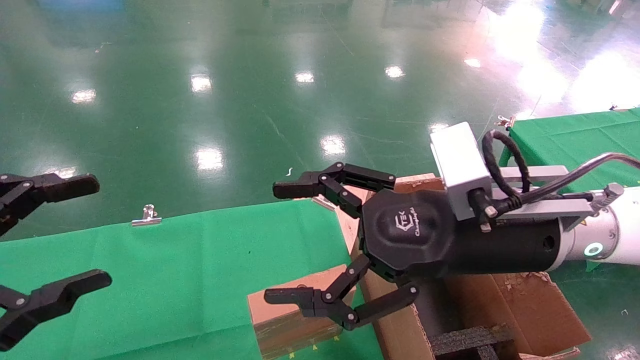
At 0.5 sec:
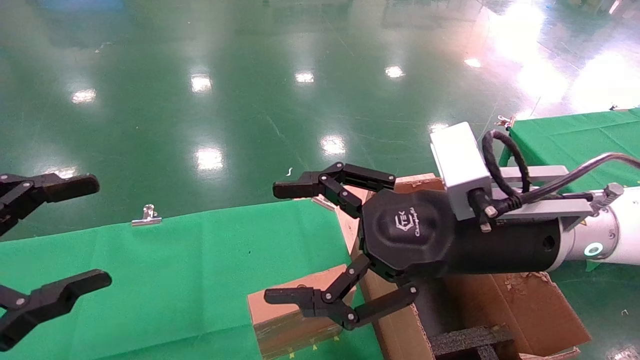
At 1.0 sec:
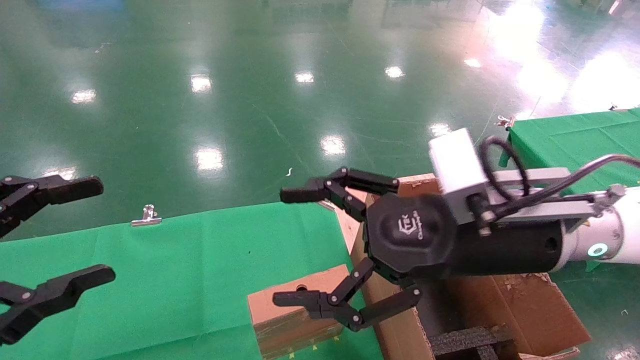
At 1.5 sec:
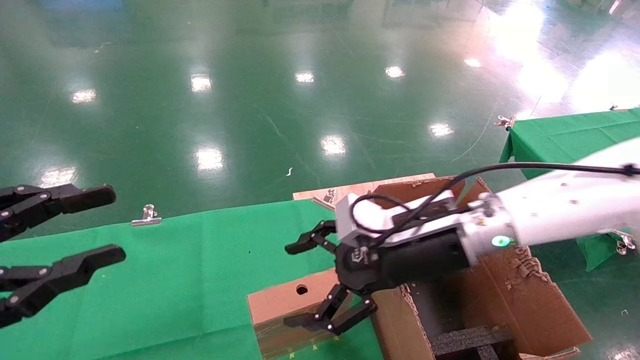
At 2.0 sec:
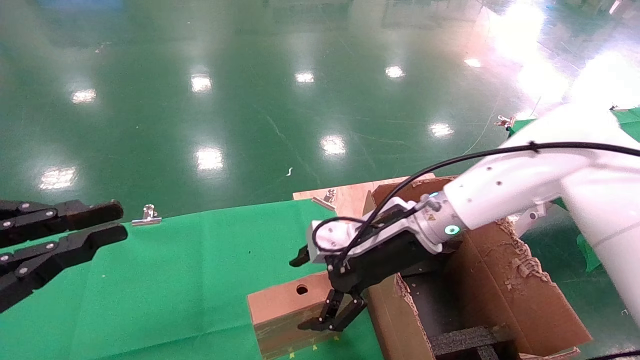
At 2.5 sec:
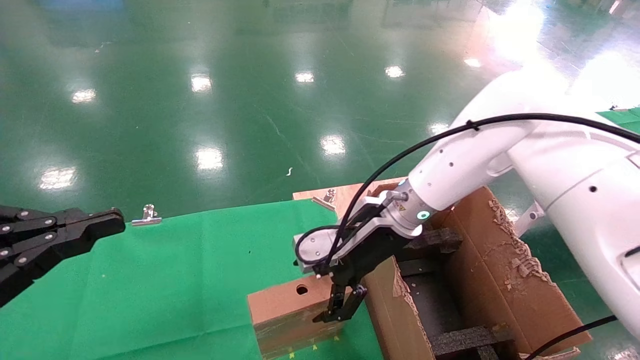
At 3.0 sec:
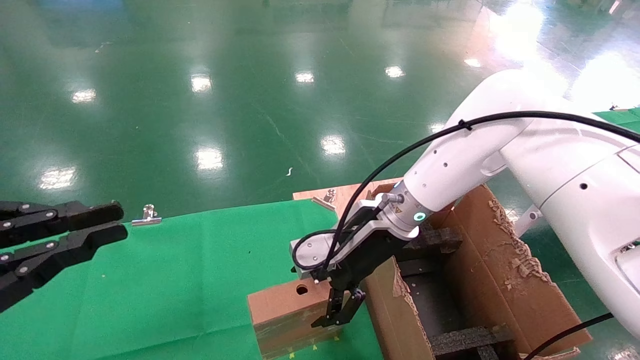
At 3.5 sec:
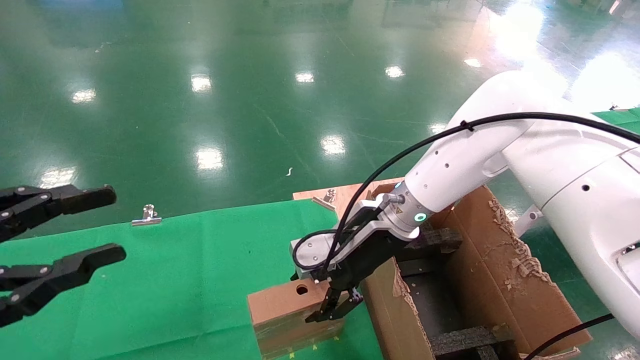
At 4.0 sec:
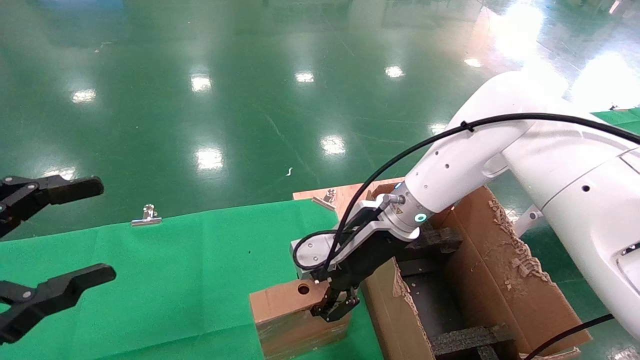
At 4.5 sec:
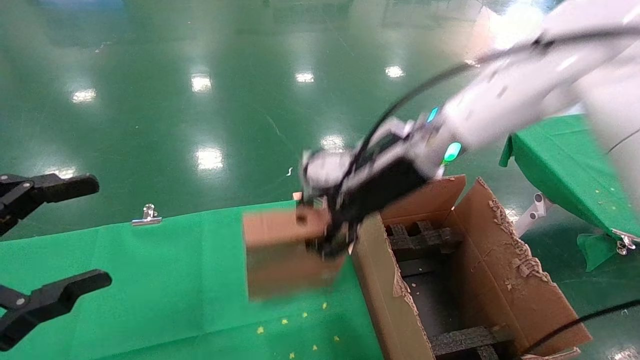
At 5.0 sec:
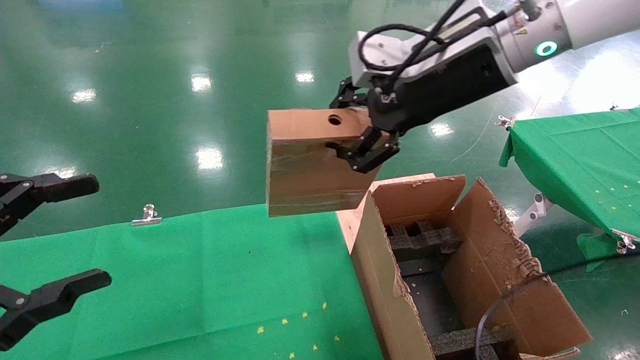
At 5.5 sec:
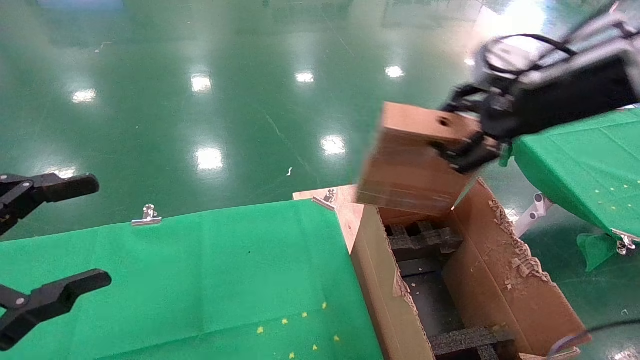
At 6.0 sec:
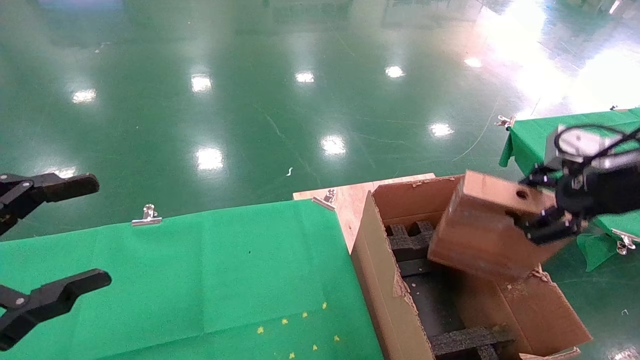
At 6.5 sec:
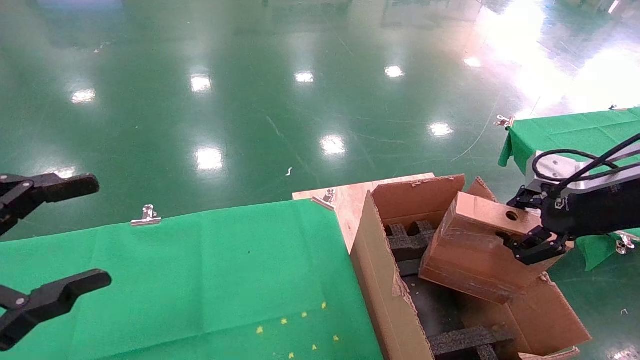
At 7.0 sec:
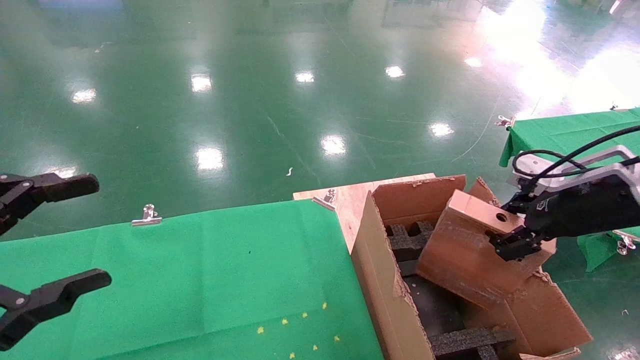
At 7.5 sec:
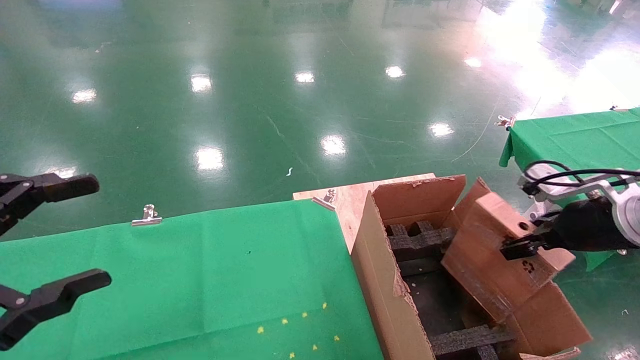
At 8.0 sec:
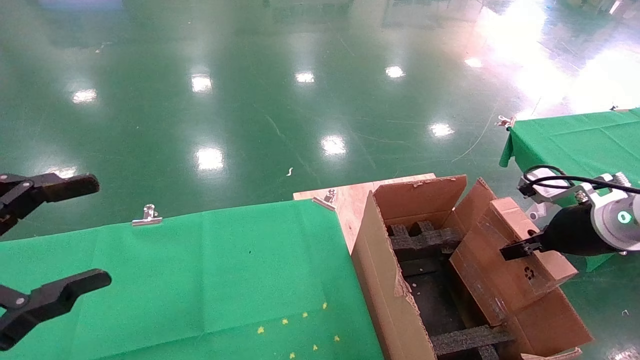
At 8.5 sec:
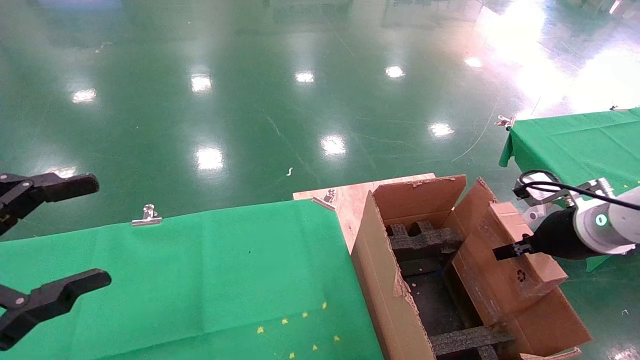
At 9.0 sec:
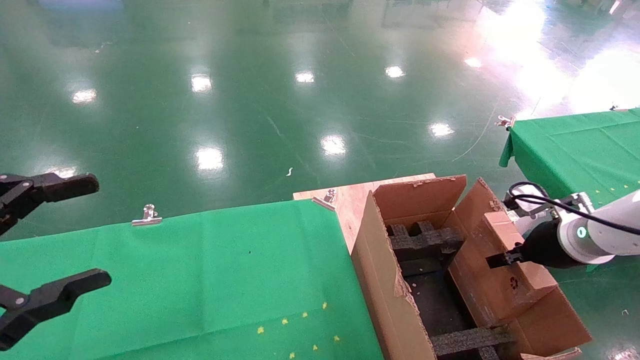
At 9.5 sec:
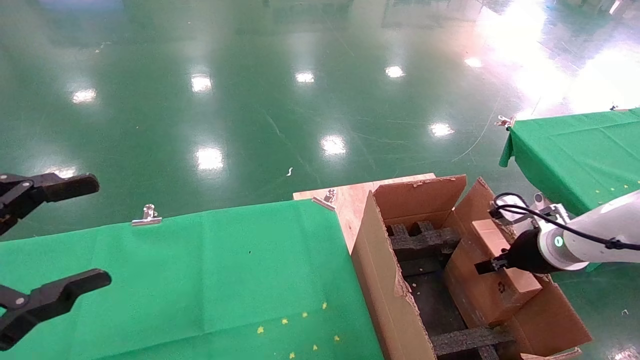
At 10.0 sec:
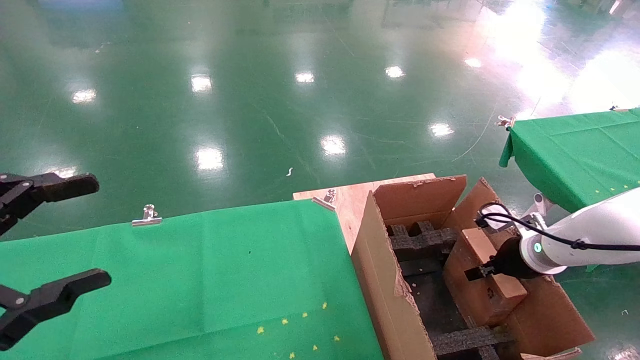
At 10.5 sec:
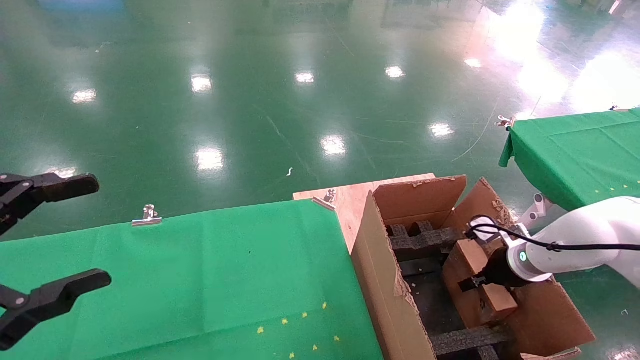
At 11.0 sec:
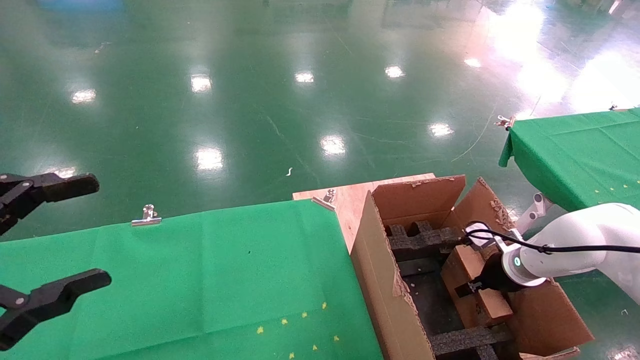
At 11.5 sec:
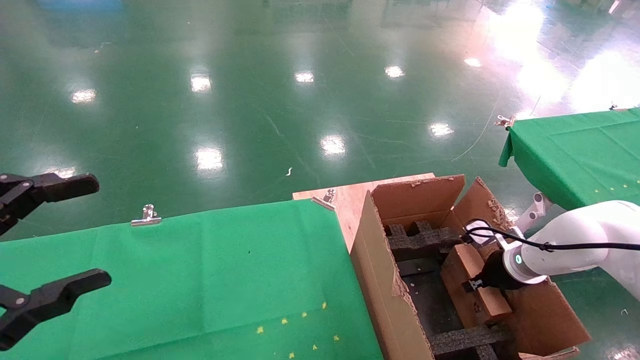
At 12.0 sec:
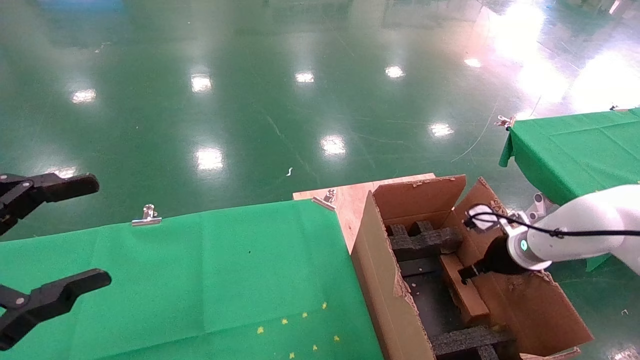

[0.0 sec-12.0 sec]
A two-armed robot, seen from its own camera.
Task of the whole recording: using a robotic arm to pick up a cardboard box and palace it the carton.
Step, 1.5 sec to 3.5 sec: Pick up the mouse and the power cord paper box.
0.0 sec to 2.0 sec: The left gripper closes its fingers. The right gripper shifts about 15 cm forward and downward.
2.0 sec to 4.0 sec: The left gripper opens up. Meanwhile the right gripper closes its fingers.
4.0 sec to 6.0 sec: The right gripper goes about 30 cm to the right and backward.
6.0 sec to 8.0 sec: The right gripper goes some 10 cm downward.
8.0 sec to 10.0 sec: The right gripper heads downward and forward, covering some 15 cm.
10.0 sec to 12.0 sec: The right gripper opens its fingers.

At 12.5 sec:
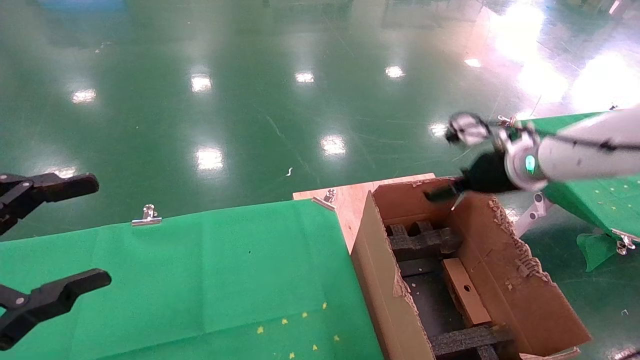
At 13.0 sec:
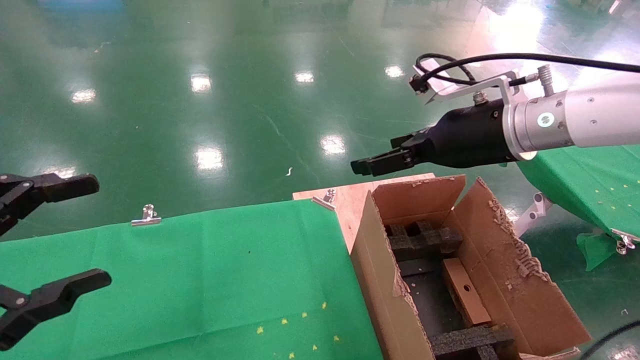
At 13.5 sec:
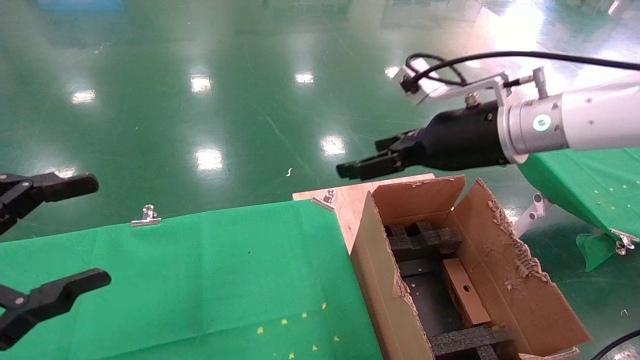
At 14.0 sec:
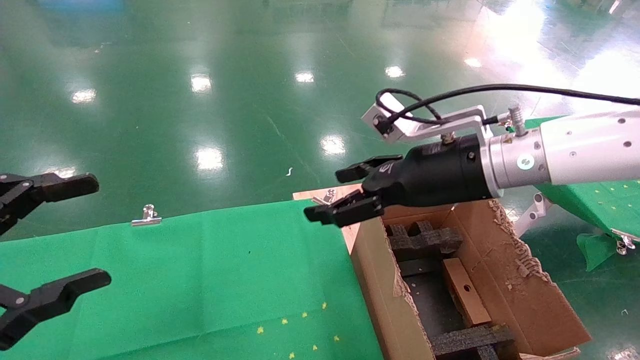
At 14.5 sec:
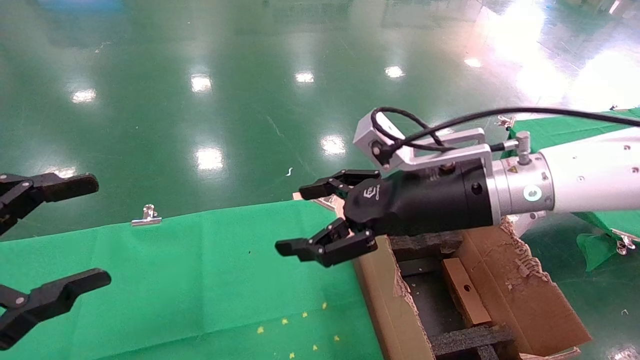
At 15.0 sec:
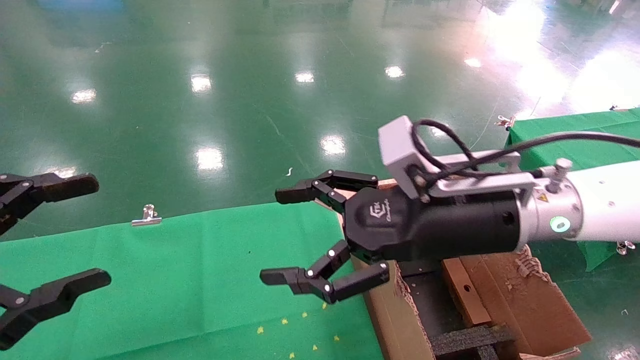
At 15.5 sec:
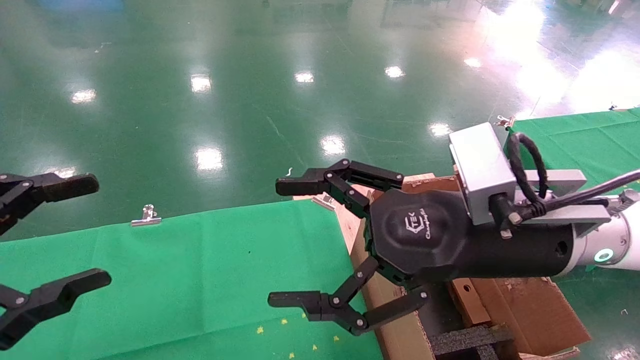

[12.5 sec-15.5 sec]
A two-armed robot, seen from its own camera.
Task of the whole recording: using a robotic arm to pick up a cardboard box and palace it the carton.
12.5 sec to 14.0 sec: The right gripper moves to the left and backward, approximately 15 cm.
14.0 sec to 15.5 sec: The right gripper travels backward by some 10 cm.
